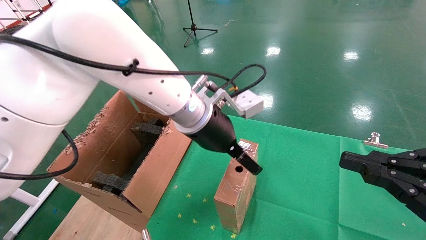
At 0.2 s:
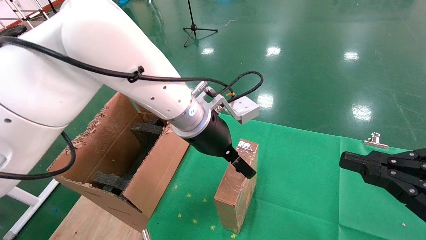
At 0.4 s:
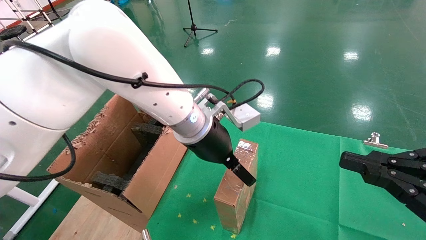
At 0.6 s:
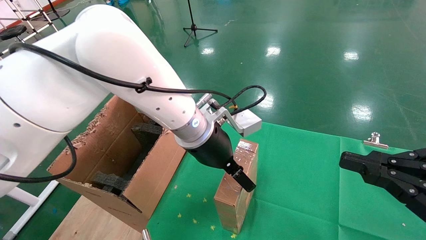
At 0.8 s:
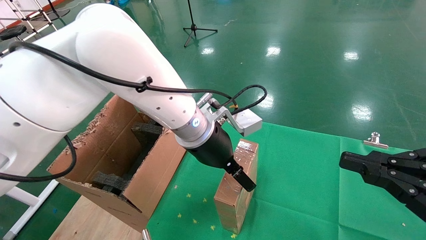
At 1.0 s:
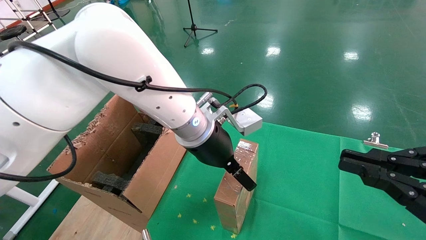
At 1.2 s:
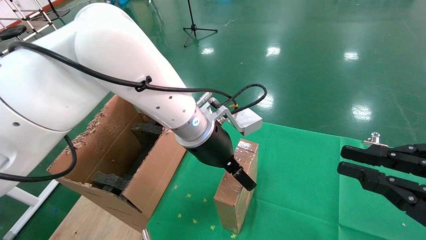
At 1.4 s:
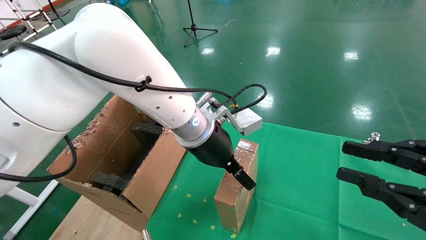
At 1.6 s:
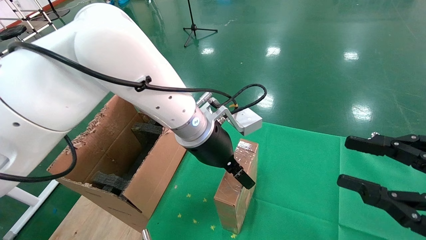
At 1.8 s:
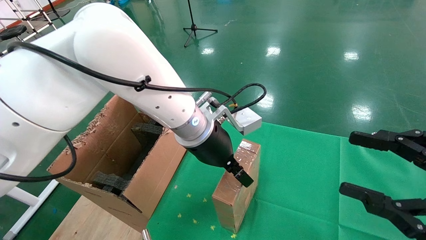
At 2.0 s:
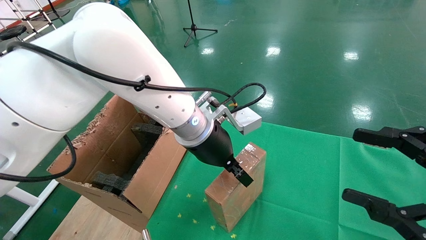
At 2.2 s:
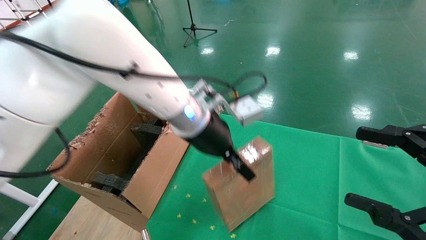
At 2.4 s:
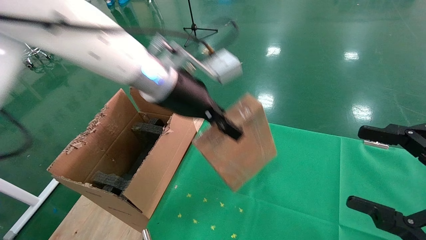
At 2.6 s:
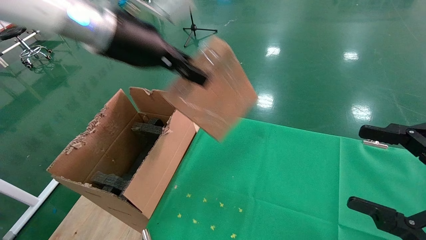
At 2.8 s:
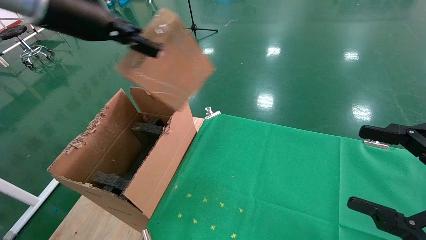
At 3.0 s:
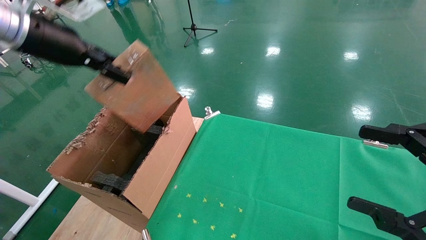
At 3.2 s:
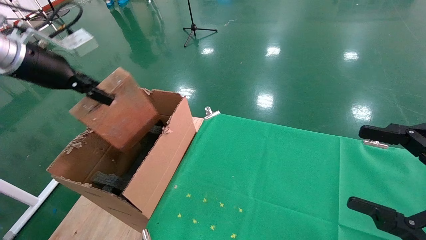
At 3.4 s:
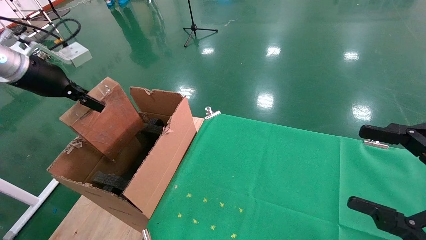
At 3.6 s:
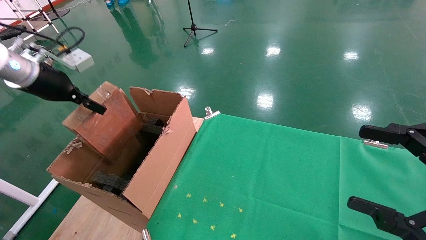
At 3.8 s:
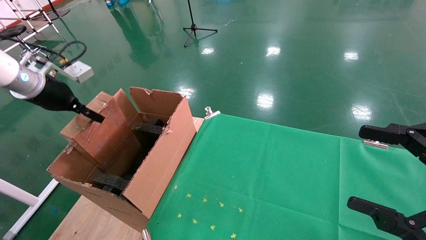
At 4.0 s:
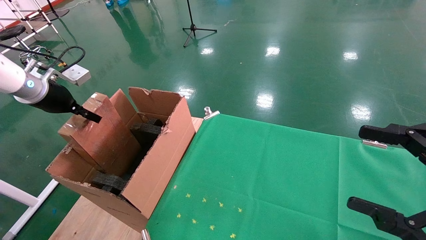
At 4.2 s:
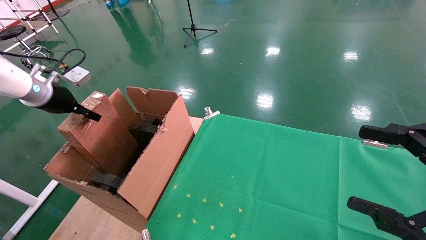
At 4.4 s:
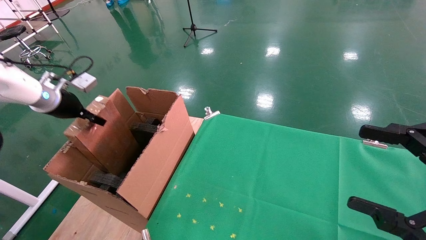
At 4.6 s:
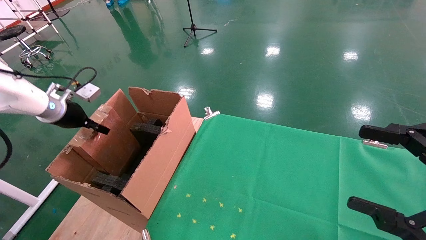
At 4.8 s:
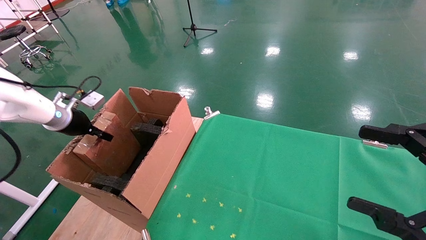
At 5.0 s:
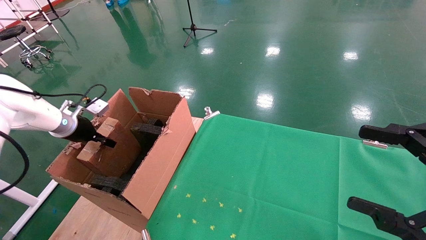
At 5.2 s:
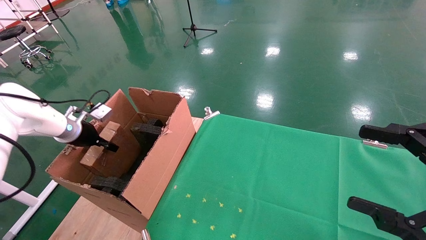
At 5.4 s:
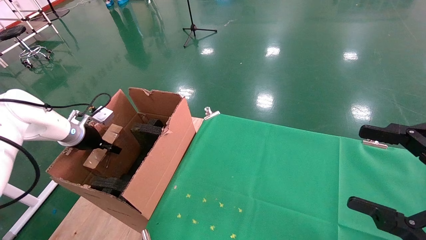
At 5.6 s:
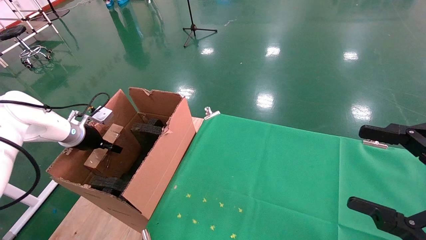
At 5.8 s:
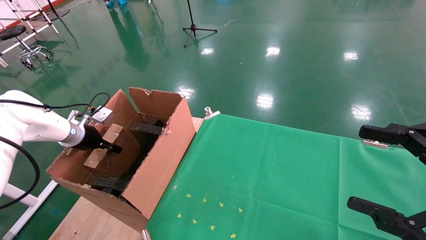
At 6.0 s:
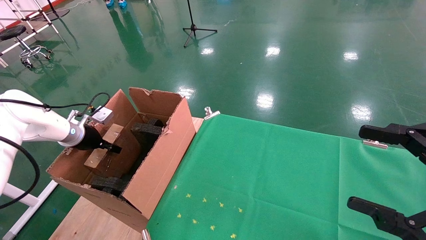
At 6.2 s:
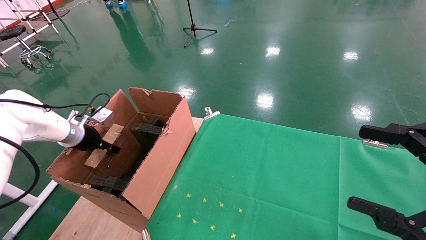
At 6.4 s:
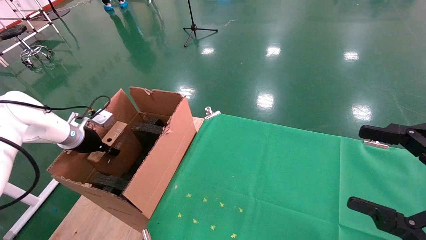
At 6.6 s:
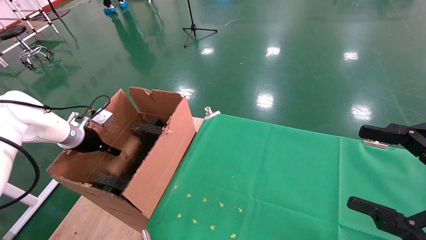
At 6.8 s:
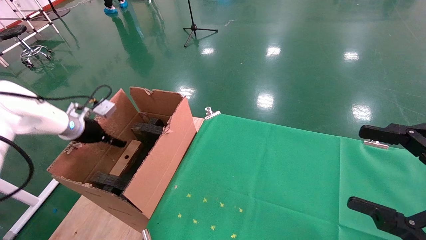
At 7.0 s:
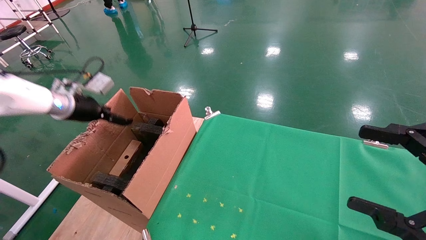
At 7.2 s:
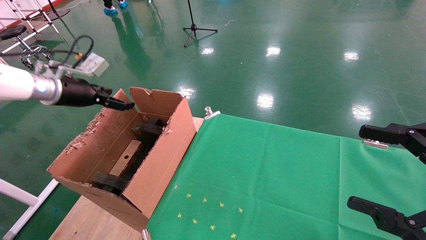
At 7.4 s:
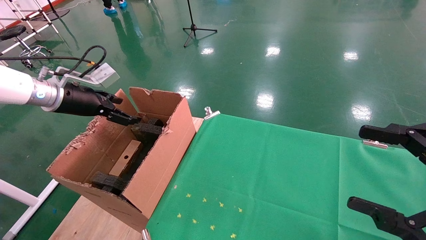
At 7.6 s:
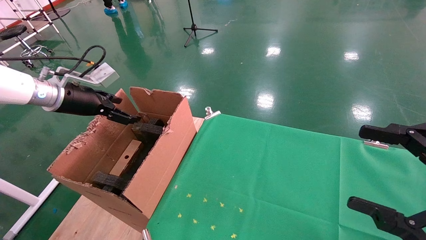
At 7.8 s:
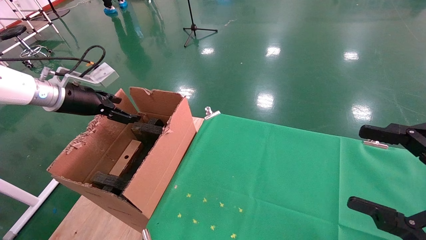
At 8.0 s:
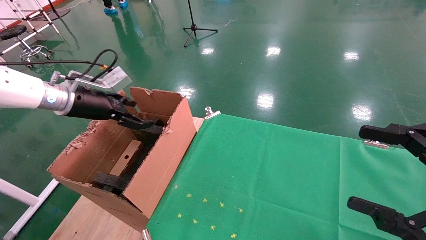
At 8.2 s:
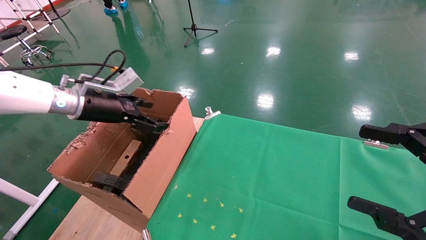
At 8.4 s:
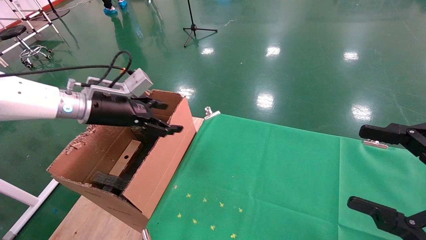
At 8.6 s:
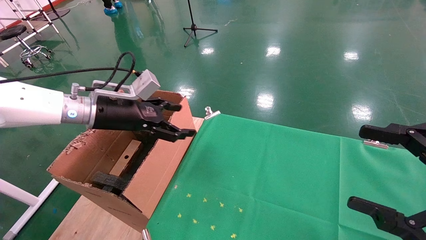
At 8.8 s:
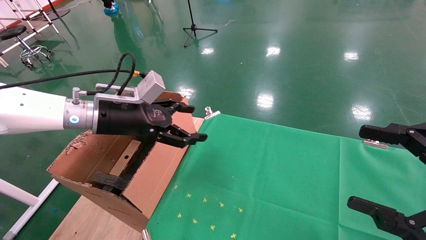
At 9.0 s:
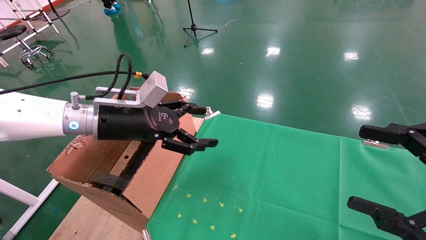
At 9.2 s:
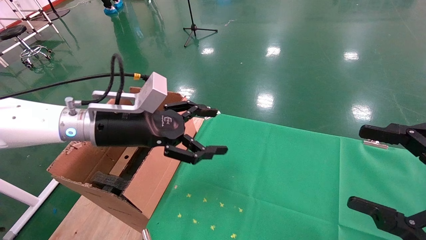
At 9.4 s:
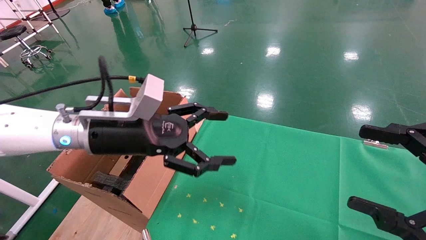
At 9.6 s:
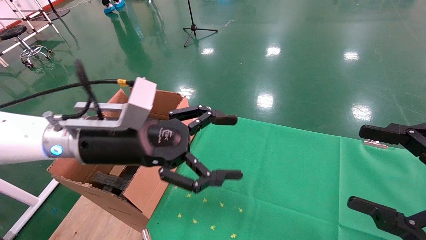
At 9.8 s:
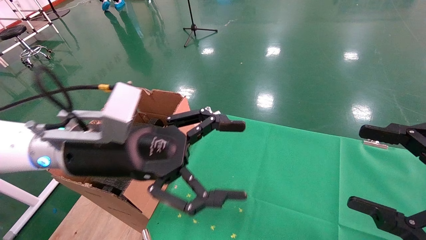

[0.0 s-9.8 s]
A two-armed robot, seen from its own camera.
Task of the whole recording: using a robotic arm to pick up a cardboard box and palace it the carton.
Step, 0.0 to 2.0 s: Pick up the mouse and the power cord paper box.
Step, 2.2 to 7.0 s: Place the mouse and the power cord paper box into the container.
1.4 to 2.8 s: The right gripper opens its fingers. Meanwhile the left gripper shifts roughly 30 cm to the left and upward, and closes up.
2.8 to 4.2 s: The left gripper heads to the left and downward, covering roughly 25 cm.
4.2 to 5.6 s: The left gripper moves downward, some 15 cm.
5.6 to 7.0 s: The left gripper travels upward by some 10 cm, and opens its fingers.
7.0 to 8.4 s: The left gripper is displaced to the right by roughly 10 cm.
8.4 to 9.8 s: The left gripper heads to the right and backward, covering about 20 cm.

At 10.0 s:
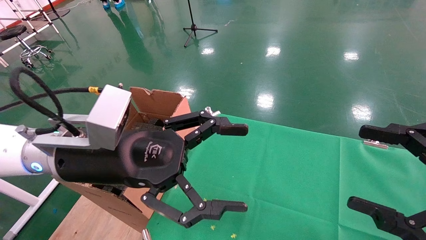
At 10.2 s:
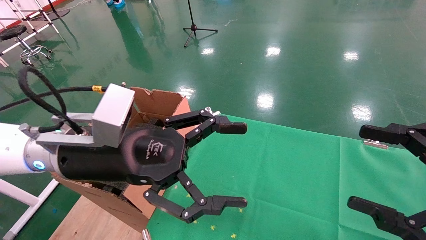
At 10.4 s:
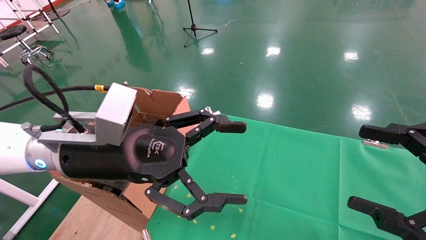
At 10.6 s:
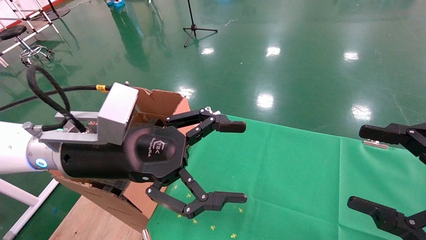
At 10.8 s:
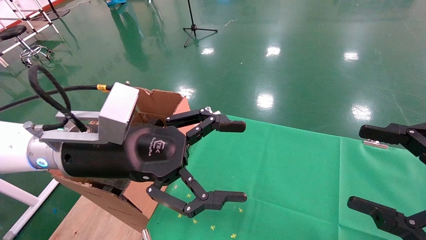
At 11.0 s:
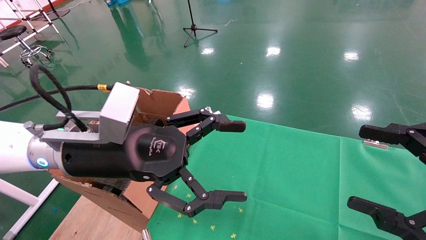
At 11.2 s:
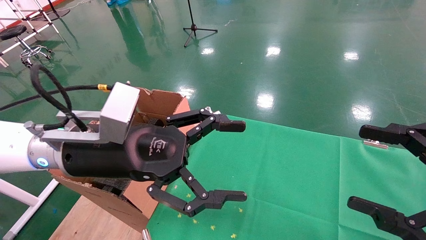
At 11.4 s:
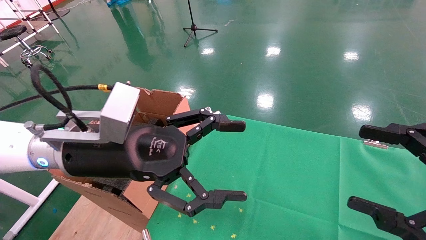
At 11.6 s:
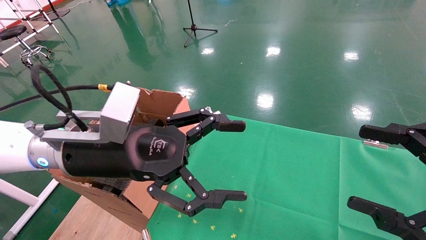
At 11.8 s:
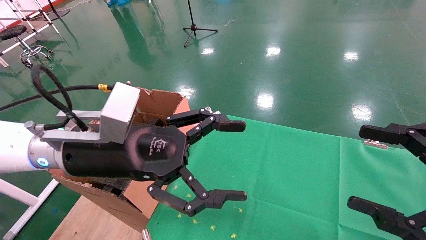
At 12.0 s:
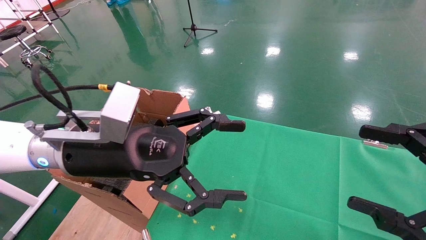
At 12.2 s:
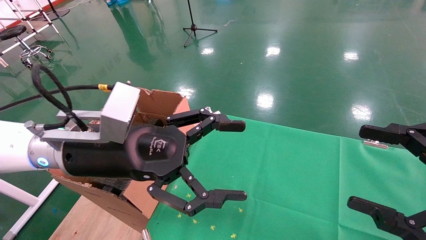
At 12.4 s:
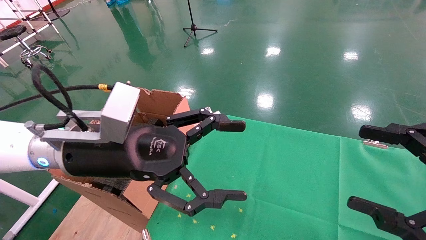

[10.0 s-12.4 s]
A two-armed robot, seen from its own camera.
Task of the whole recording: using a robotic arm to pick up a cardboard box and palace it the carton.
10.0 to 12.4 s: Neither gripper changes place.

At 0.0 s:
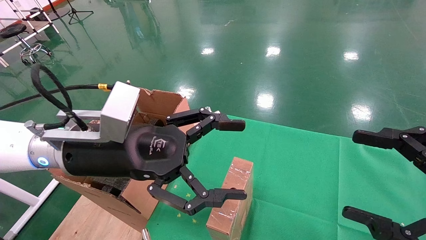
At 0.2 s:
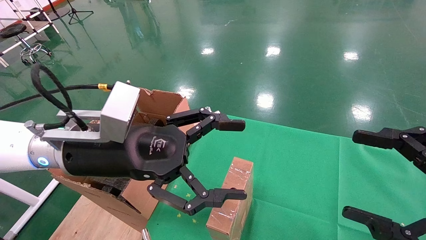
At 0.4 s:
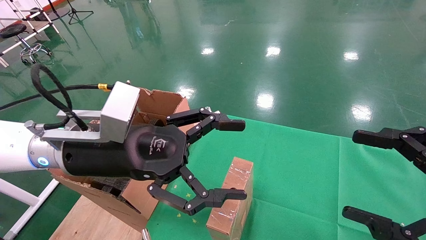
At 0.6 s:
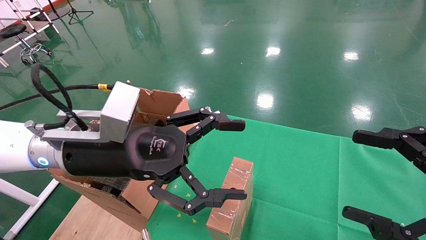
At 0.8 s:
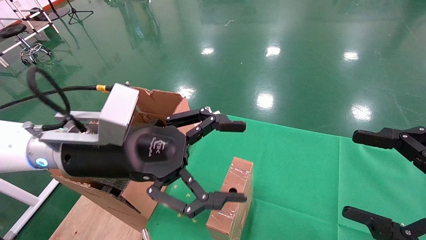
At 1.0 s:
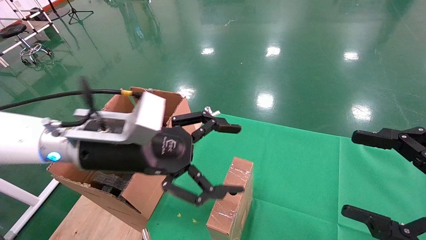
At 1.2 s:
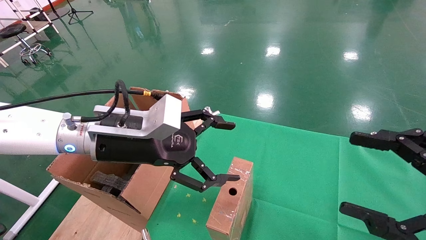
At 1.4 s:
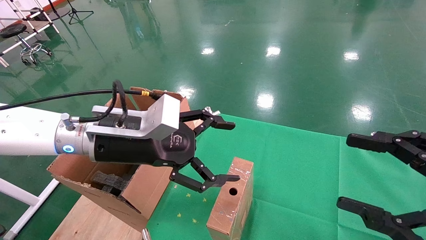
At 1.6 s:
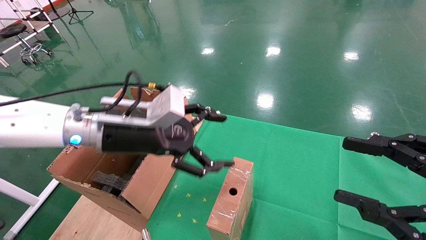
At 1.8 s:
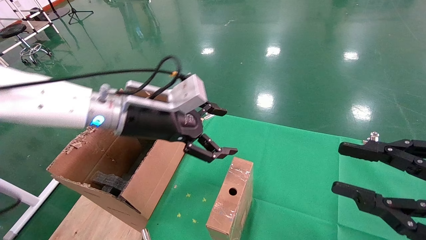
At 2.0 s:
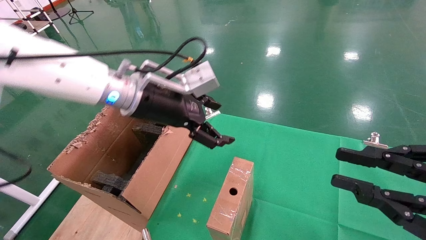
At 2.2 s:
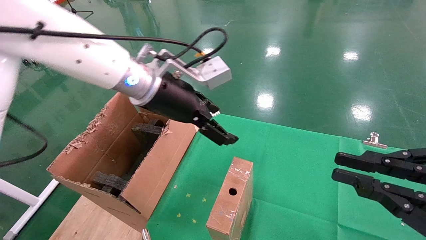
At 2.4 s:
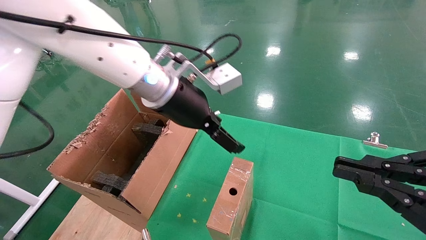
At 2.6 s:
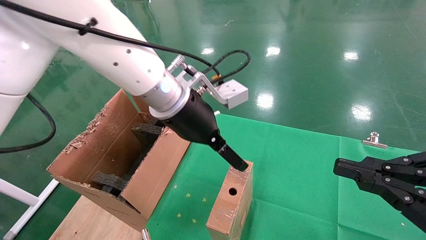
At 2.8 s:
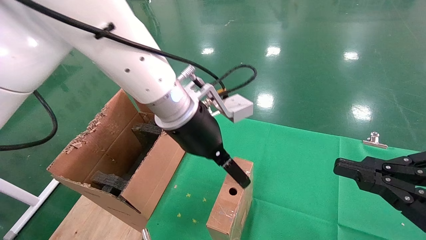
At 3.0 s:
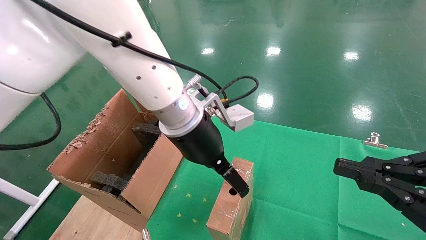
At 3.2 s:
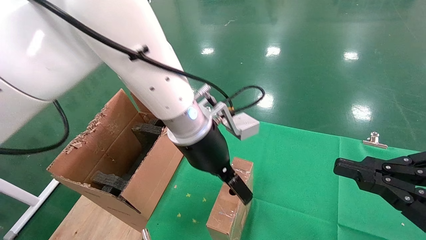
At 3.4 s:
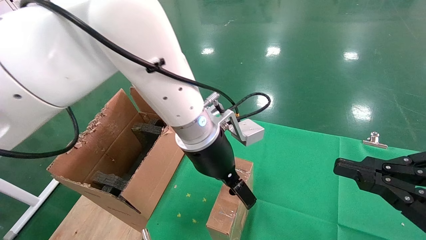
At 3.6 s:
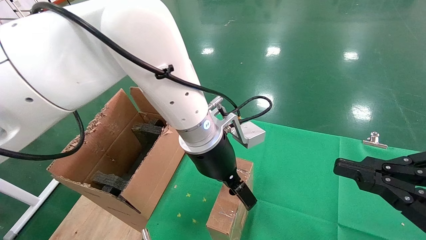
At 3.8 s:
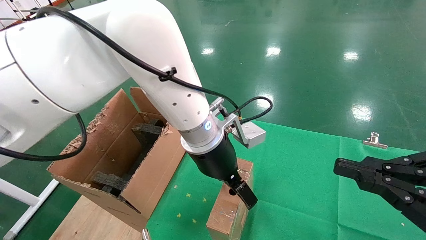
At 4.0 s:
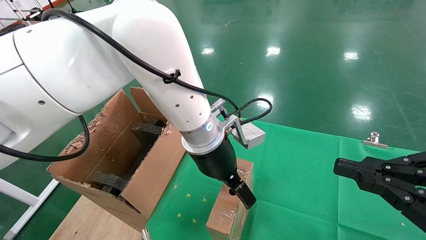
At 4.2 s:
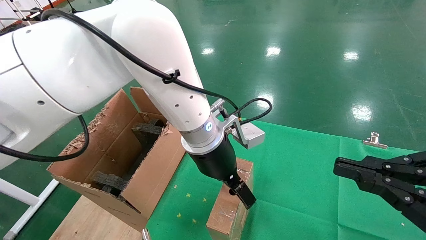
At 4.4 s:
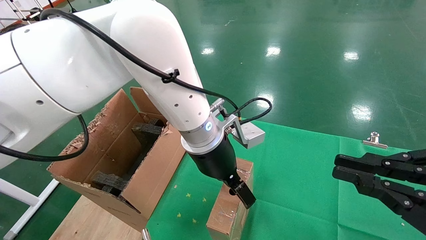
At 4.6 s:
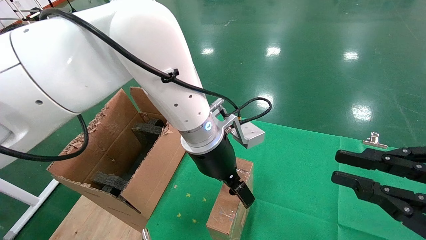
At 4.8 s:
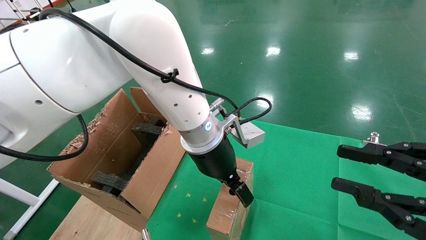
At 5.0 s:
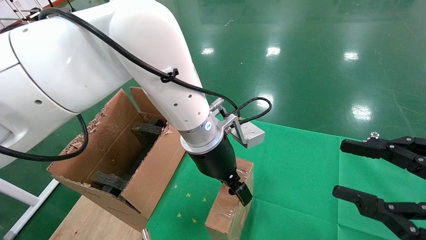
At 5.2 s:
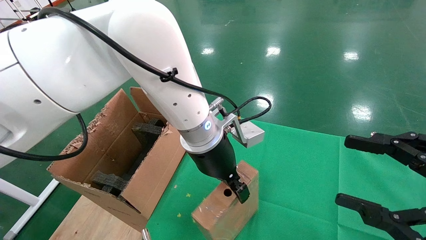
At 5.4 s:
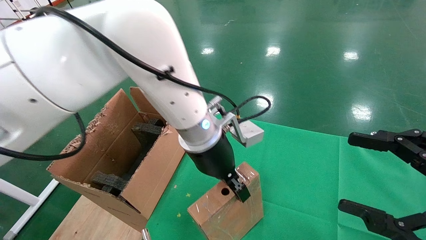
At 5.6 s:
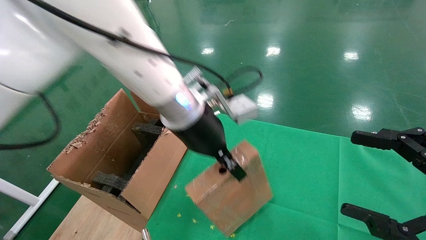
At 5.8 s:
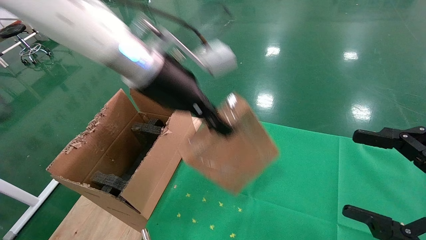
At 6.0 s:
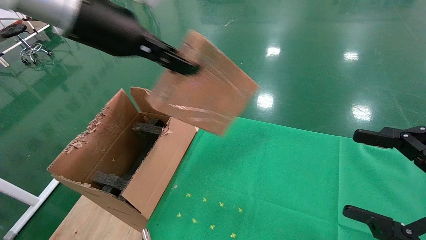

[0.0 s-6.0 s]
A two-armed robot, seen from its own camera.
Task of the whole recording: using a robotic arm to pick up a cardboard box and palace it the carton.
Step, 1.2 to 5.4 s: Pick up the mouse and the power cord paper box.
0.0 to 1.6 s: The left gripper heads forward, covering approximately 5 cm.
1.6 to 3.0 s: The left gripper goes approximately 15 cm to the right; the right gripper closes up.
4.4 to 6.0 s: The left gripper moves to the left and upward, approximately 25 cm, and closes. Meanwhile the right gripper opens.
